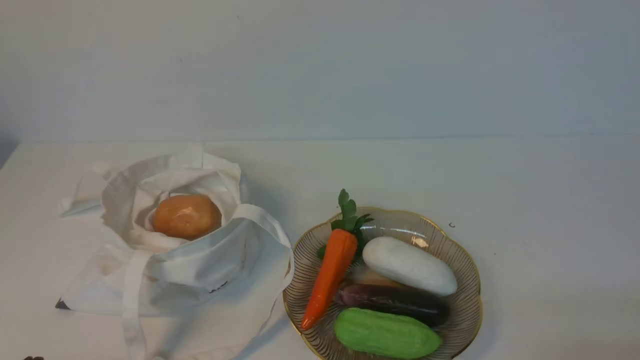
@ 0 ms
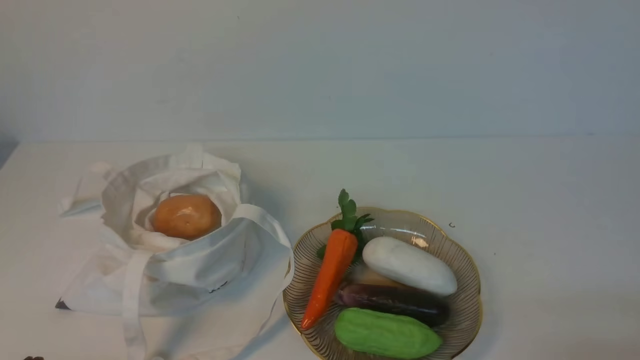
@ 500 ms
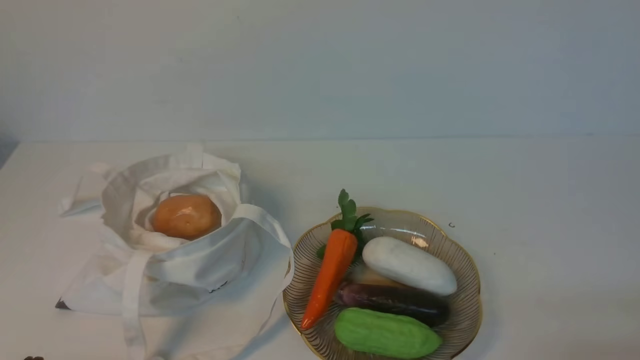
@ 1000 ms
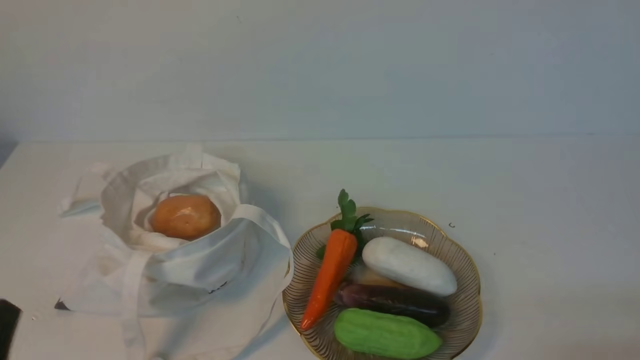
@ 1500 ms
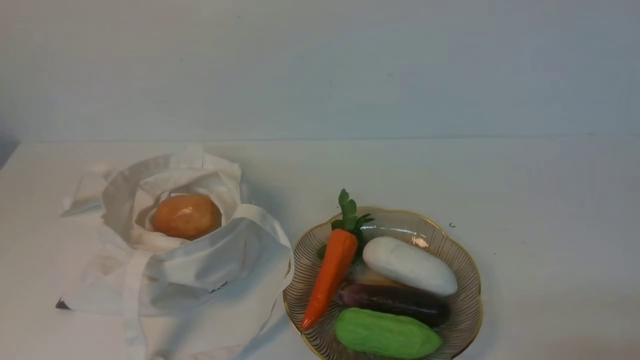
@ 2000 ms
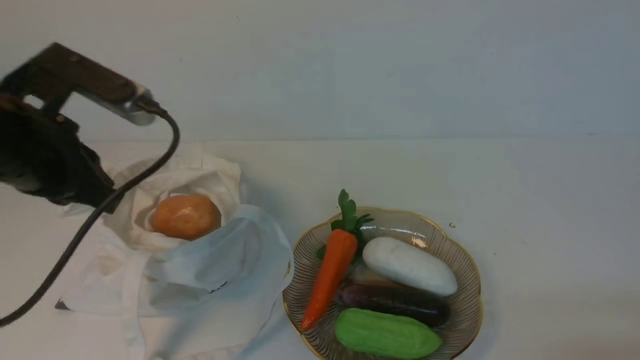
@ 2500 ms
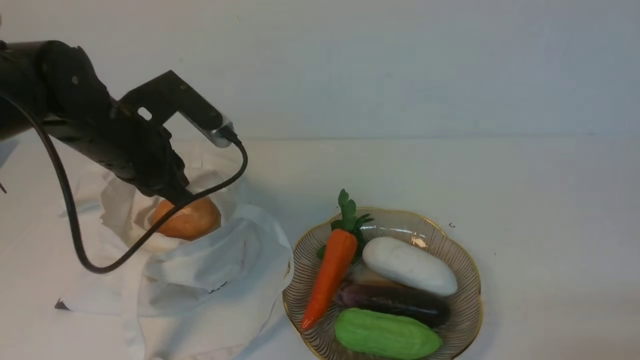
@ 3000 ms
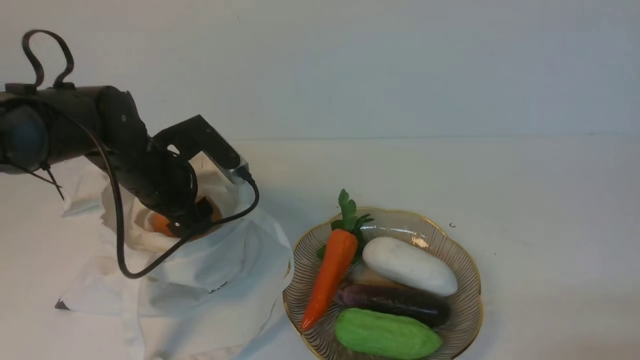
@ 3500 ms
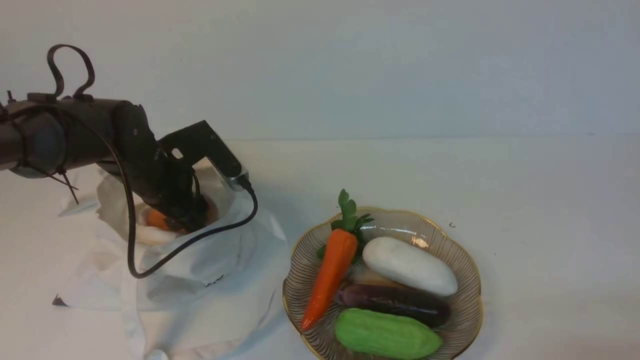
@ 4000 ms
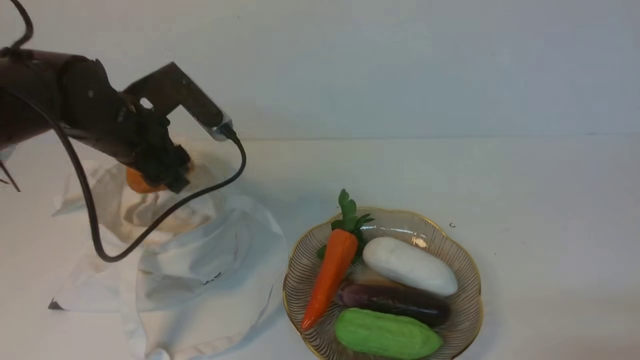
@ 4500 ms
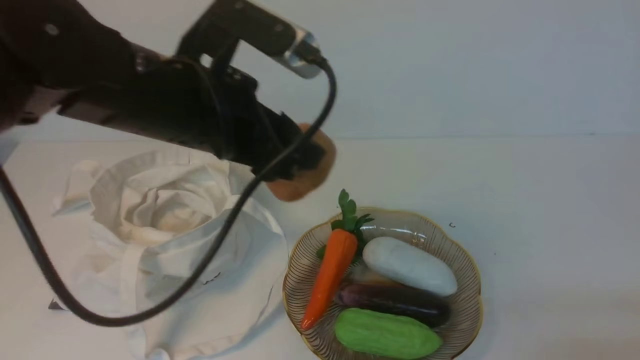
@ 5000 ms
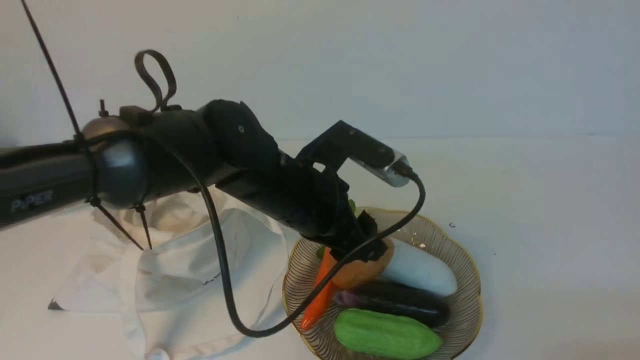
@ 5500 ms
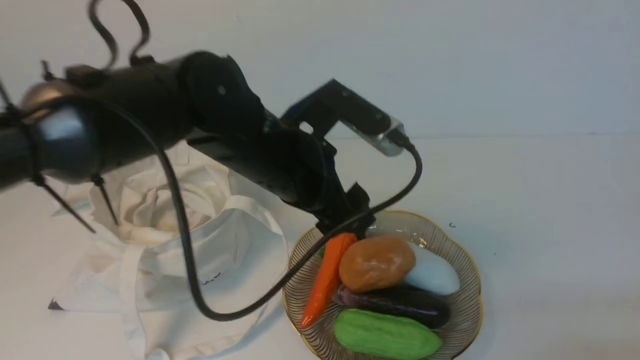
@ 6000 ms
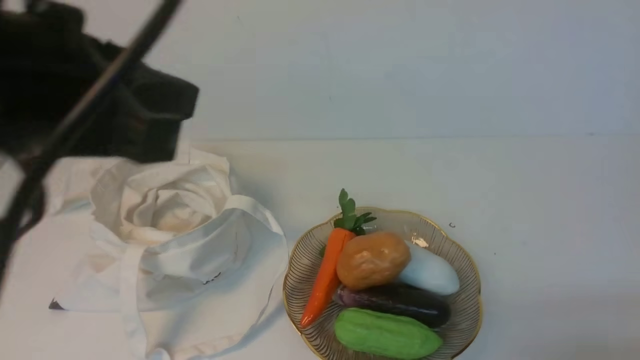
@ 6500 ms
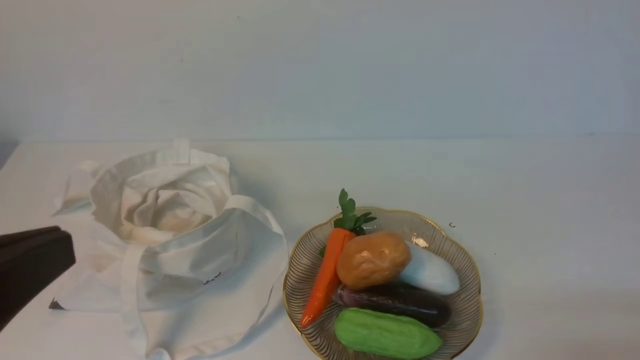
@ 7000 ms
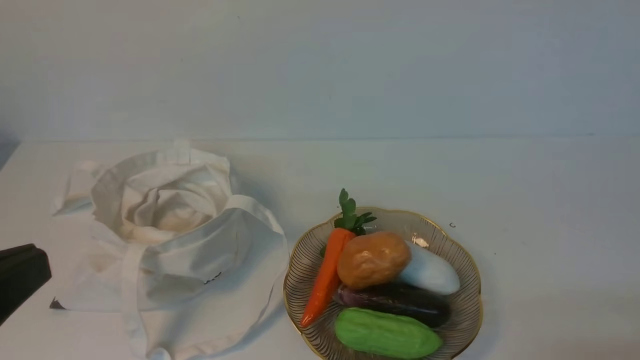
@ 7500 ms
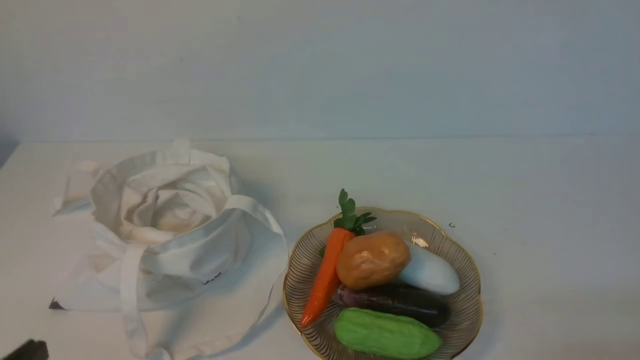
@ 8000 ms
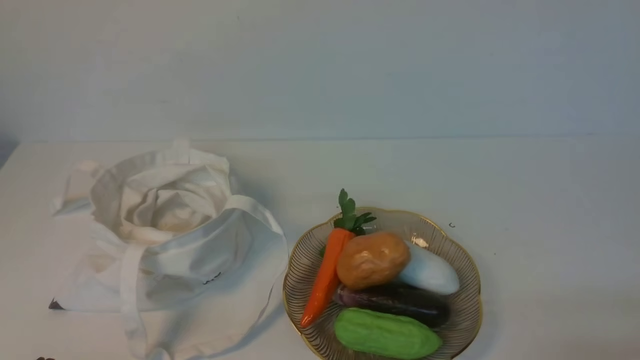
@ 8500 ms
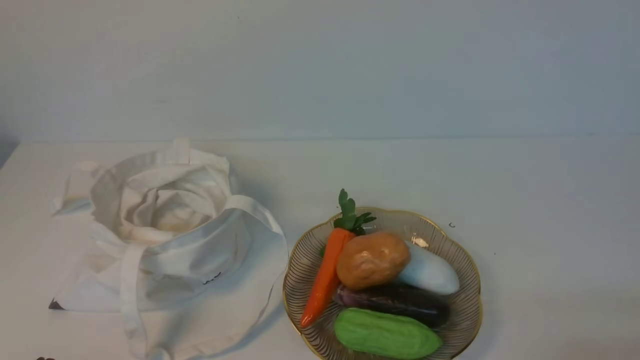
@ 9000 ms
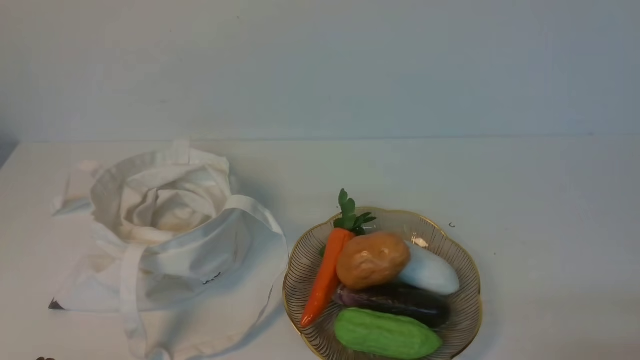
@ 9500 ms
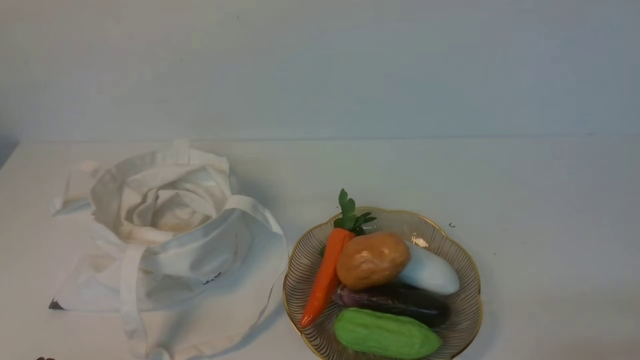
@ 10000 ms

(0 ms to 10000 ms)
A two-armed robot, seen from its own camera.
Task of the whole recording: take vegetables from cloth bag on white table place on plate.
Step, 0 ms - 3500 ms: Grasp the potato with left gripper.
Step, 4500 ms - 6000 ms: Place the potato on the plate with left gripper.
2000 ms - 4000 ms: The left gripper is displaced forward and downward by about 35 cm, and opens.
4000 ms - 6000 ms: The left gripper travels to the right, upward and backward by about 20 cm.
6000 ms - 8000 ms: The left gripper moves backward and to the left, roughly 35 cm, and closes up.
